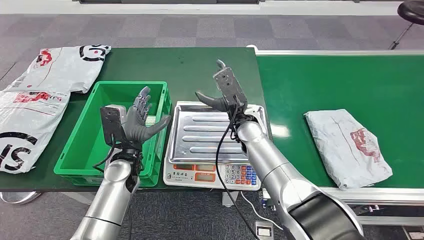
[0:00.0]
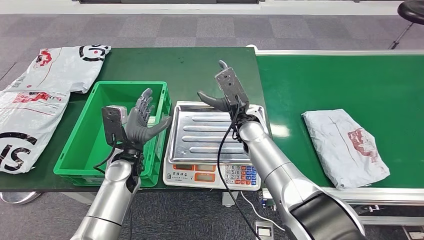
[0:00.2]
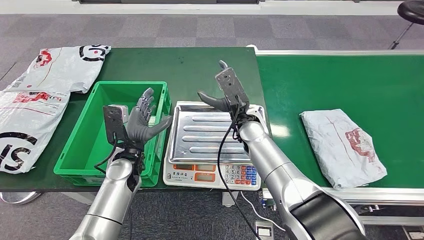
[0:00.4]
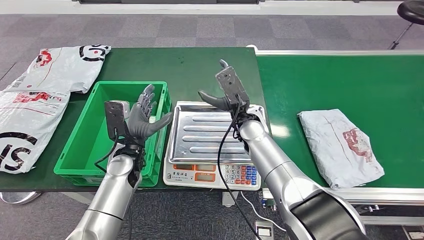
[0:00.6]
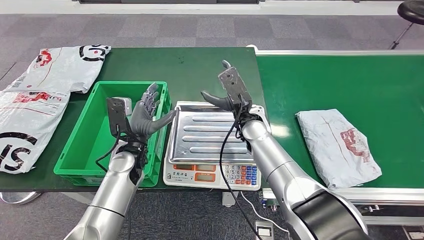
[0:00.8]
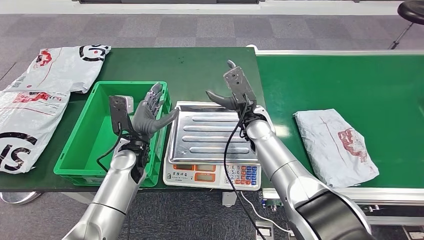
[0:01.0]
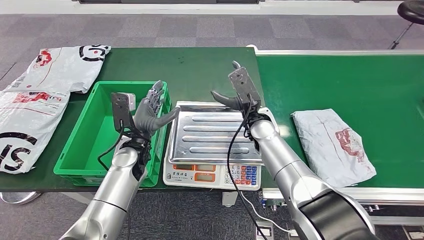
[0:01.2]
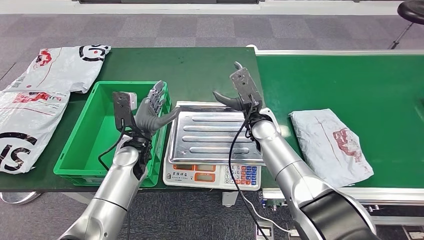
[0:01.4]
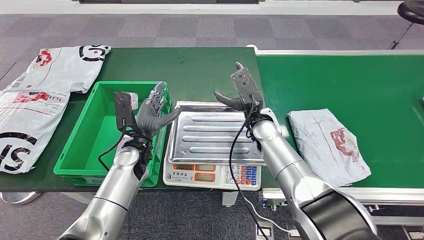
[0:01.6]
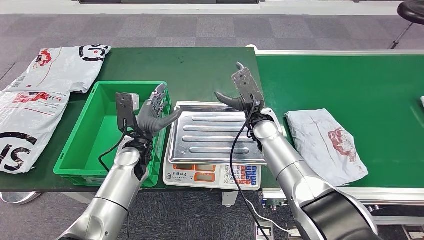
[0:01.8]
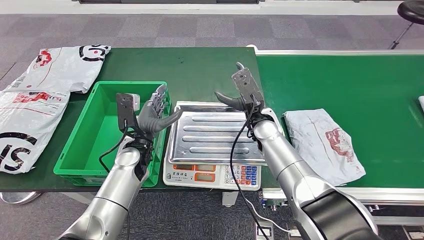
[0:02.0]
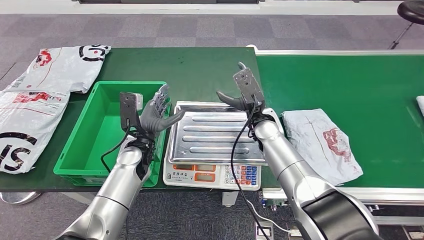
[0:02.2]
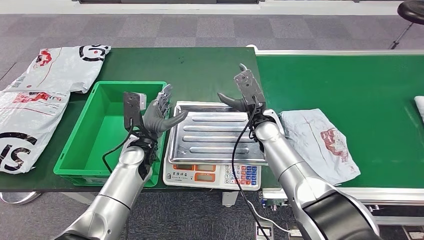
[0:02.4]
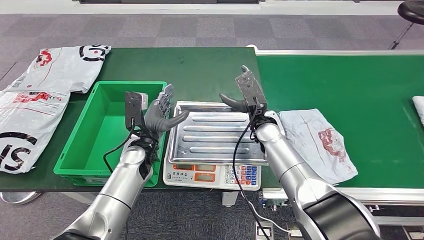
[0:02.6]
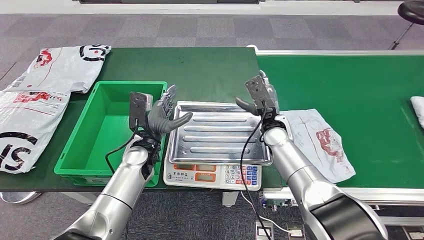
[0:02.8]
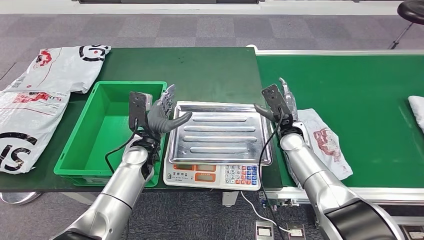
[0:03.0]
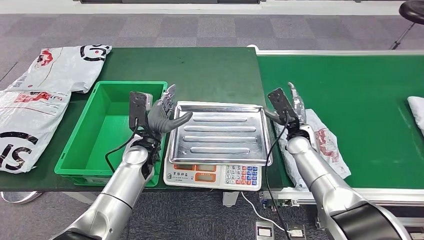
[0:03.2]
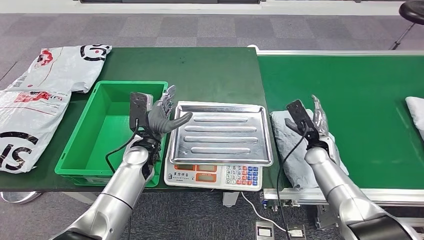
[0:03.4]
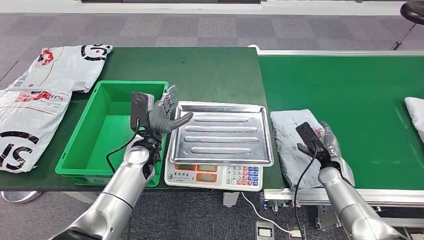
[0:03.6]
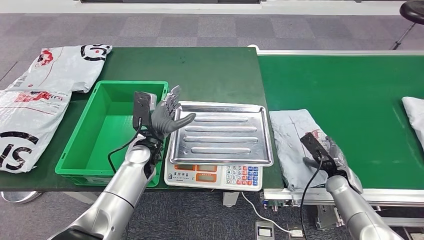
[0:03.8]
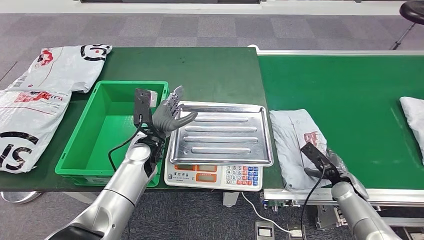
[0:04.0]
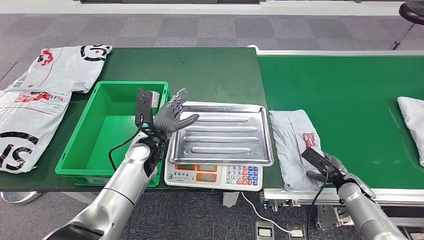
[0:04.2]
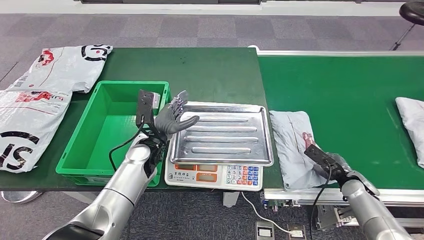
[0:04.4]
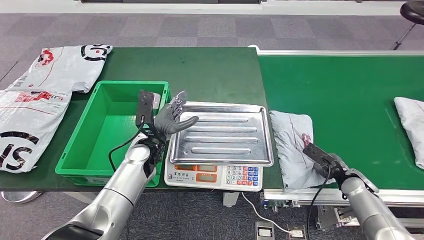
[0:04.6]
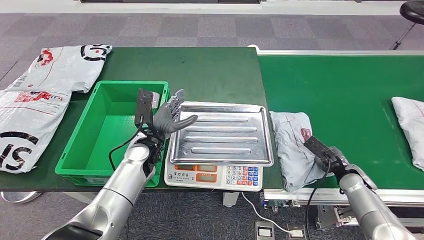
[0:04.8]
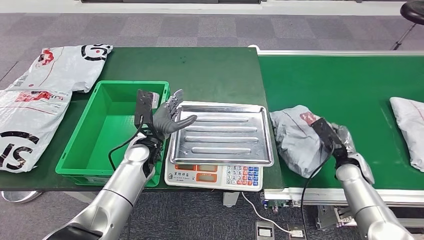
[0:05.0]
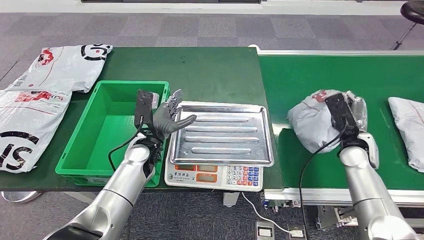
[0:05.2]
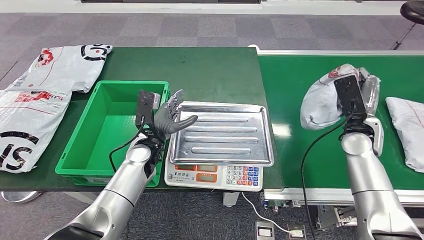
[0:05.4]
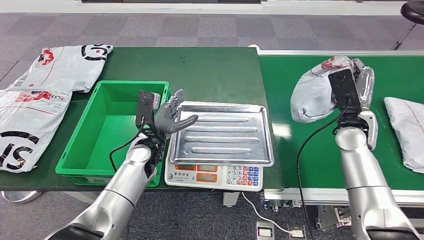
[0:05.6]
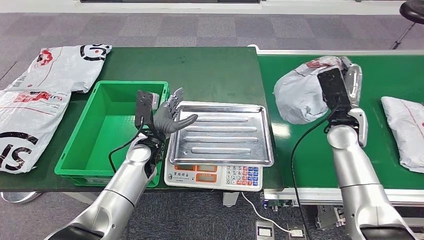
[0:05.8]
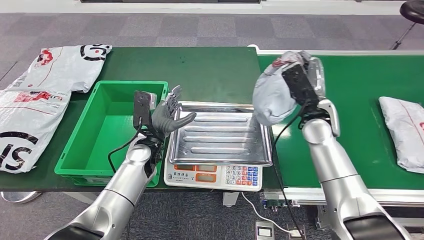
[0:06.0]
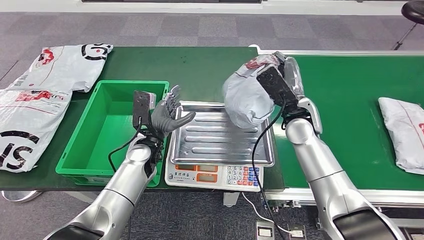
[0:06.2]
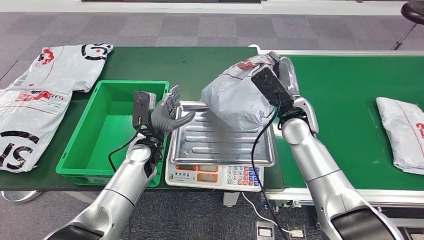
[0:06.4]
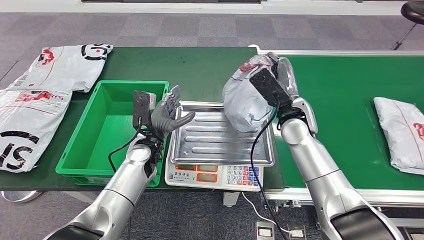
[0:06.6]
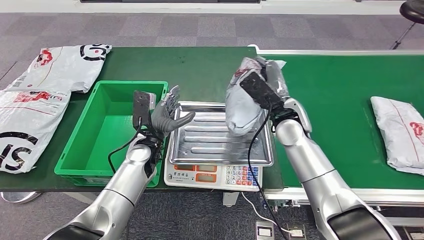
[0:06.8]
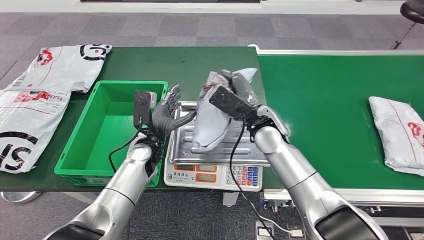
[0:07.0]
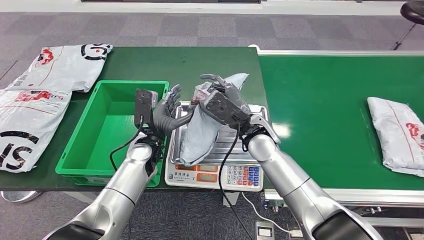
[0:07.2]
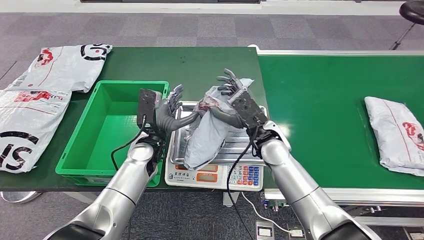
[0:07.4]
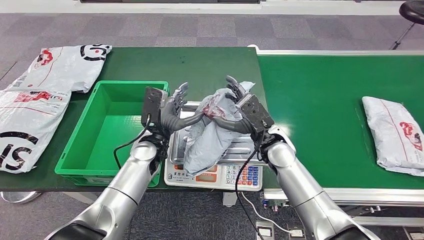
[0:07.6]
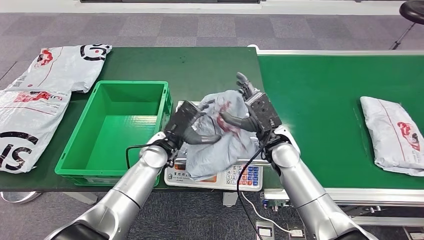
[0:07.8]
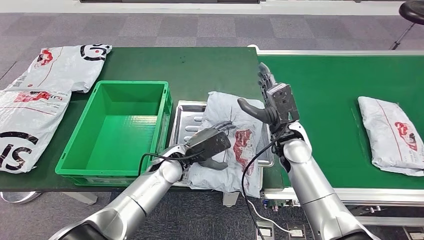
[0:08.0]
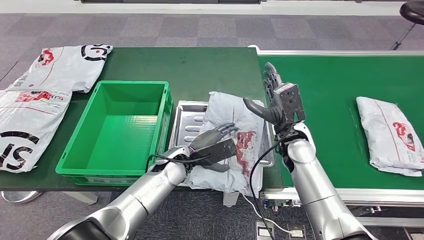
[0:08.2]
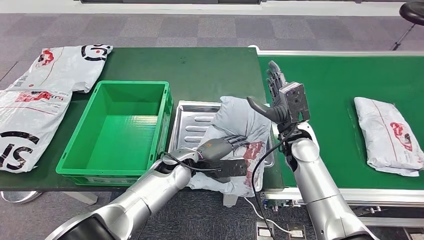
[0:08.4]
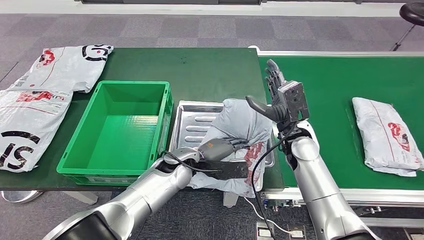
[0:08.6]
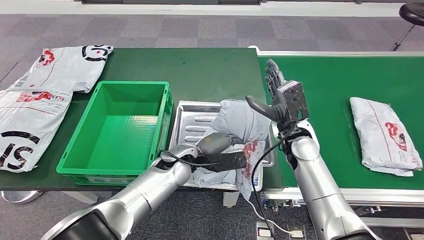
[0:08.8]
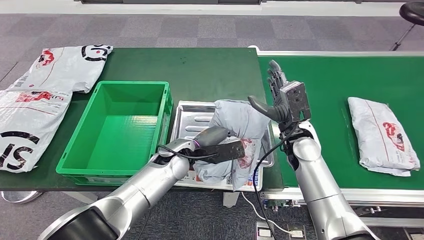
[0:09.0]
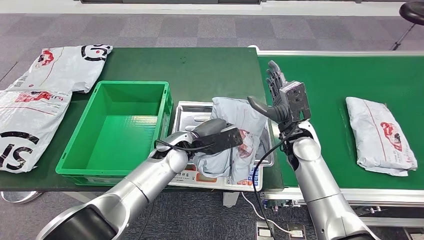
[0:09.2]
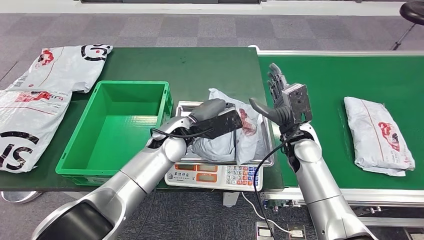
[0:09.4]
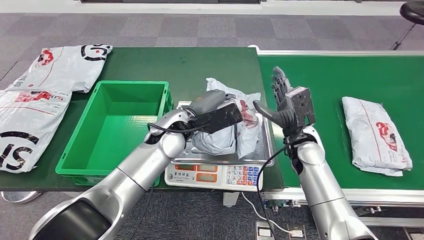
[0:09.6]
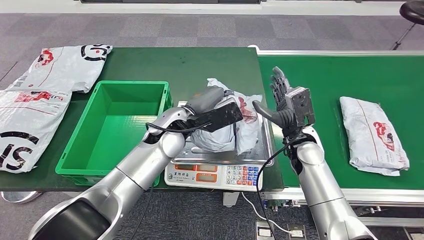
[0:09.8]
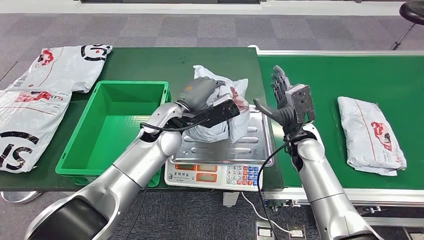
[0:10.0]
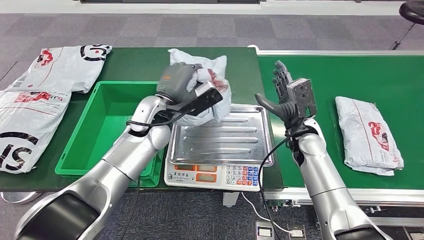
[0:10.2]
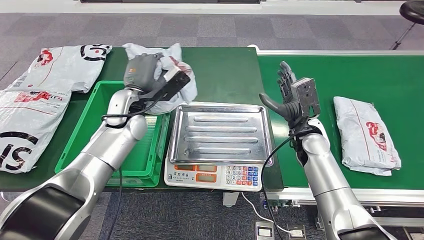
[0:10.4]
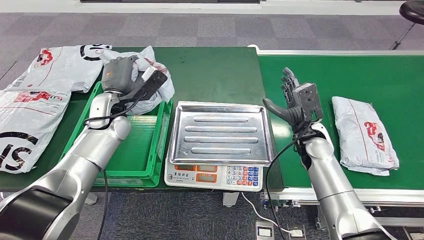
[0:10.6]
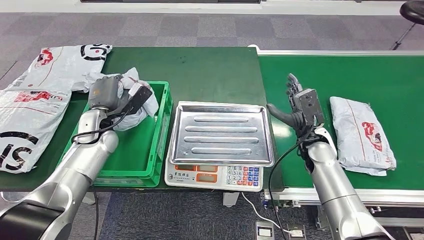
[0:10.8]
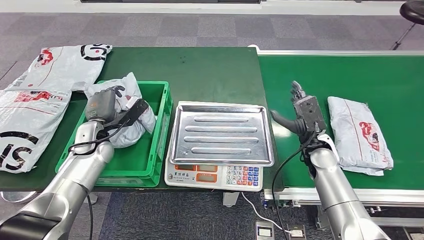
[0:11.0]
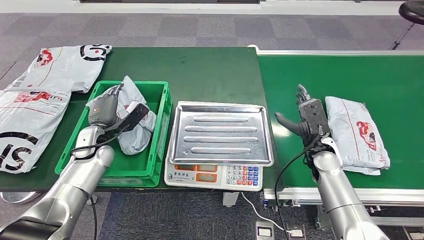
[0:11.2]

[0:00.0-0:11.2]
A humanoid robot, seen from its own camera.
Step, 0:00.0 to 0:06.4: Take the parcel off the conveyor belt.
Step, 0:06.6 to 0:08.2: Place the parcel onto the inbound machine.
Step, 0:08.4 to 0:10.0: Pick up the parcel from the inbound machine.
0:03.2 to 0:04.8: The right hand shifts about 20 cm to the right, backward and downward.

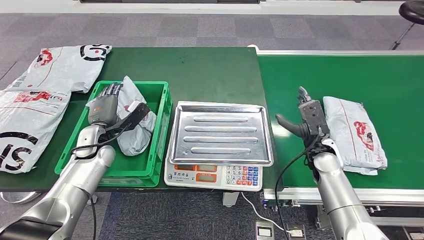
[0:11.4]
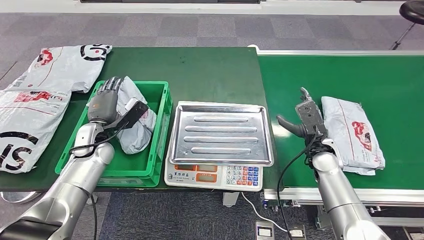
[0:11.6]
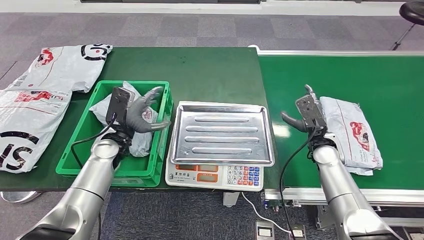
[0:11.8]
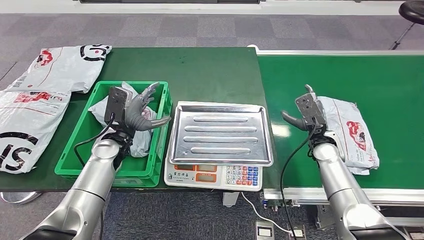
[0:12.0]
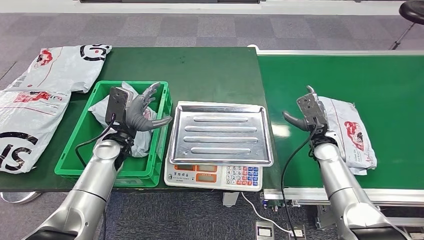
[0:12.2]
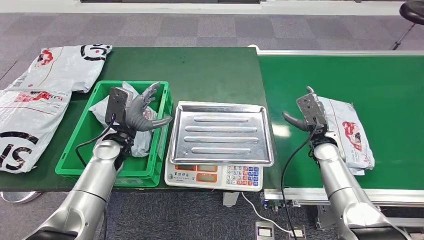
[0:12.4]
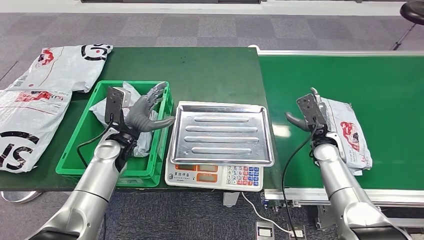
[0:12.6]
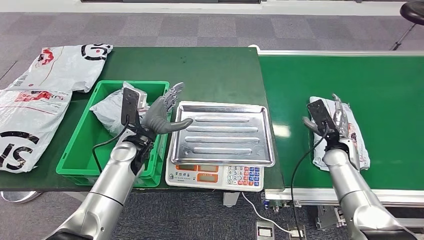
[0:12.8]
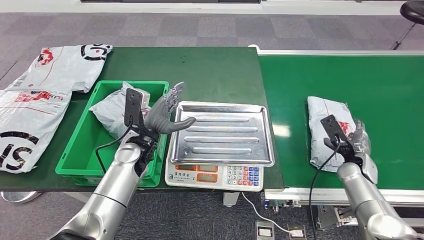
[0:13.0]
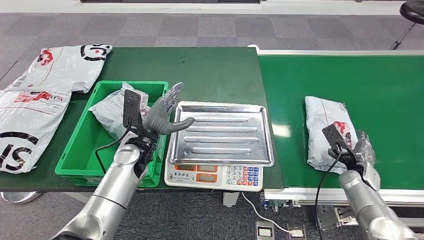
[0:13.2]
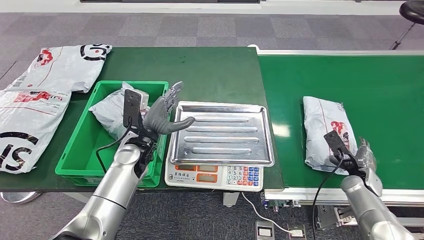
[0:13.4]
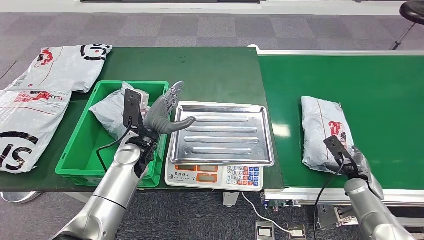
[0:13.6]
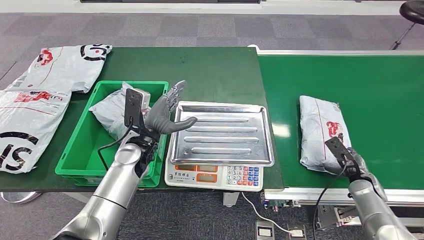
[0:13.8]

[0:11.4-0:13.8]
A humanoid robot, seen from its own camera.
Step, 0:11.4 to 0:13.6: Put the parcel inside the courier box.
0:11.4 to 0:12.6: The left hand heads to the right, covering approximately 10 cm.
0:12.6 to 0:13.8: The left hand shifts some 5 cm to the right; the right hand is displaced to the right, backward and downward by some 15 cm.
